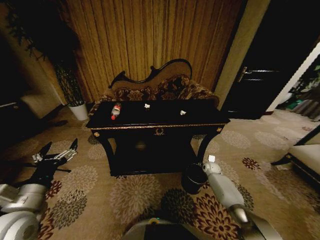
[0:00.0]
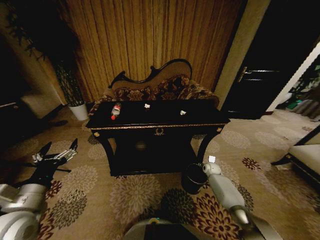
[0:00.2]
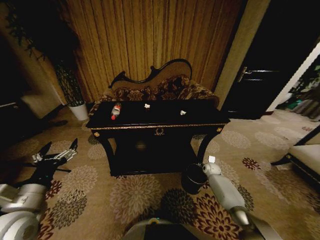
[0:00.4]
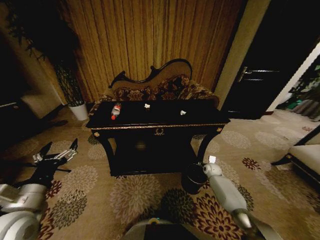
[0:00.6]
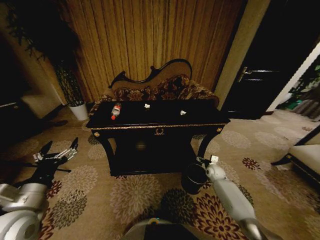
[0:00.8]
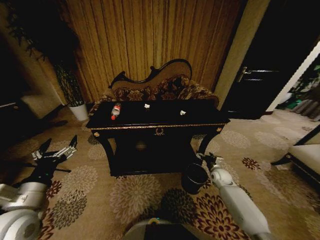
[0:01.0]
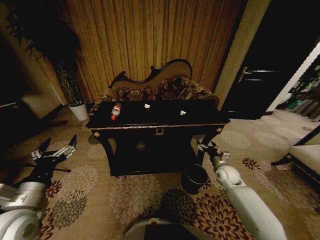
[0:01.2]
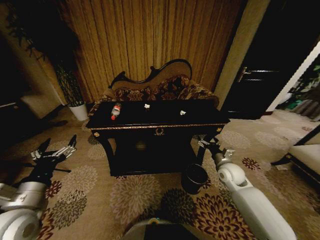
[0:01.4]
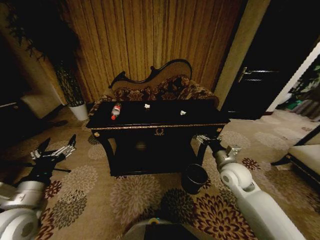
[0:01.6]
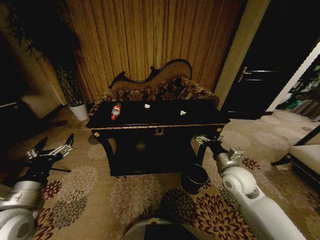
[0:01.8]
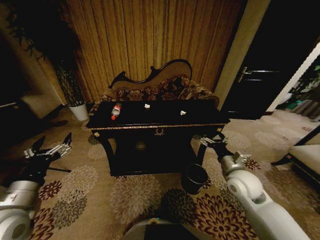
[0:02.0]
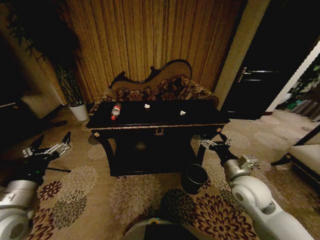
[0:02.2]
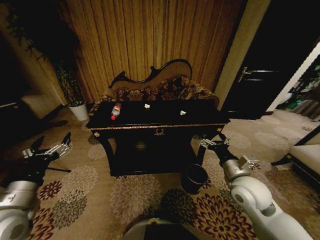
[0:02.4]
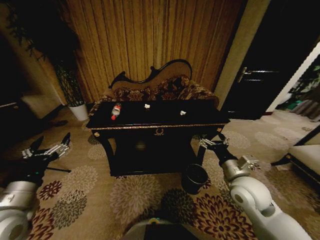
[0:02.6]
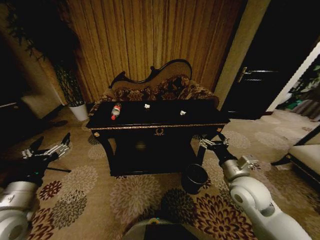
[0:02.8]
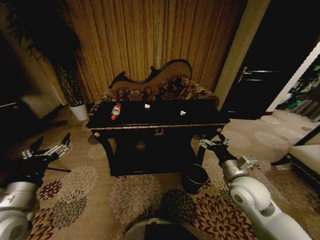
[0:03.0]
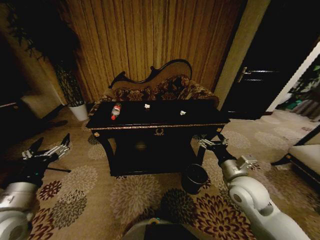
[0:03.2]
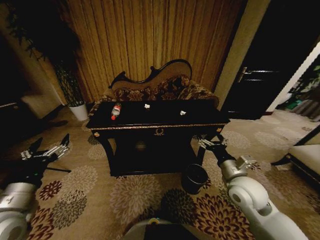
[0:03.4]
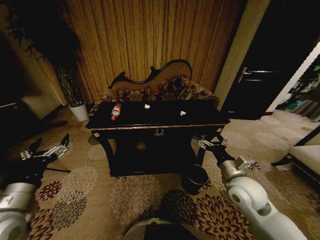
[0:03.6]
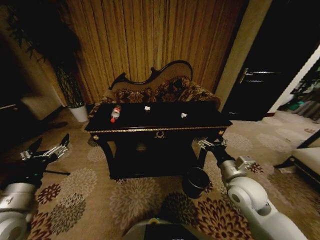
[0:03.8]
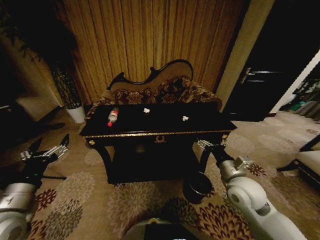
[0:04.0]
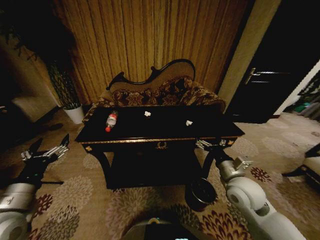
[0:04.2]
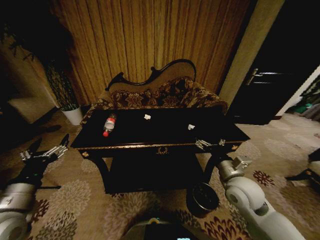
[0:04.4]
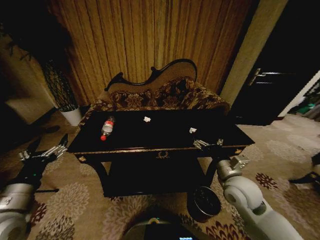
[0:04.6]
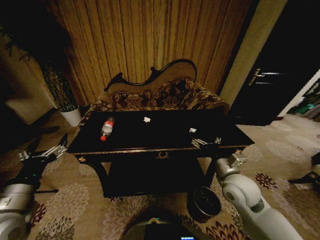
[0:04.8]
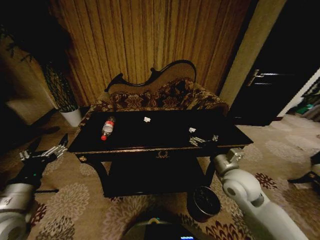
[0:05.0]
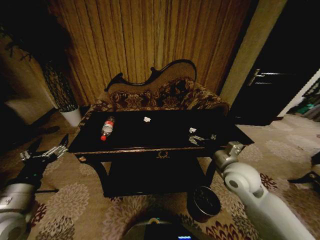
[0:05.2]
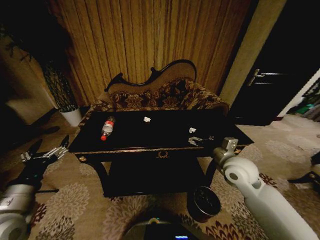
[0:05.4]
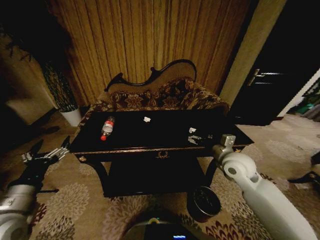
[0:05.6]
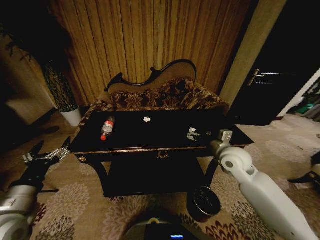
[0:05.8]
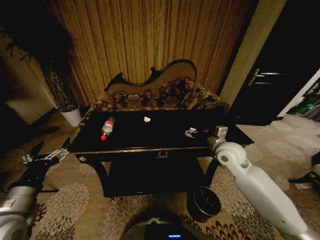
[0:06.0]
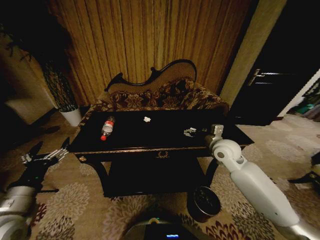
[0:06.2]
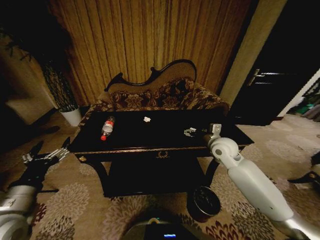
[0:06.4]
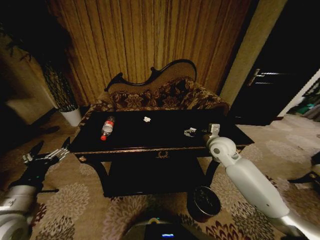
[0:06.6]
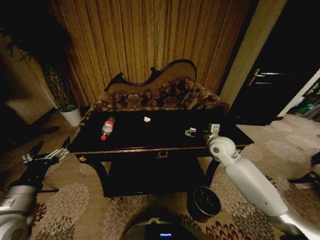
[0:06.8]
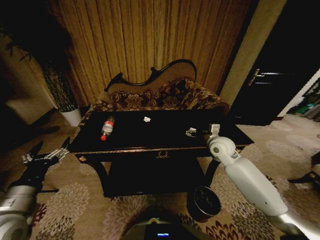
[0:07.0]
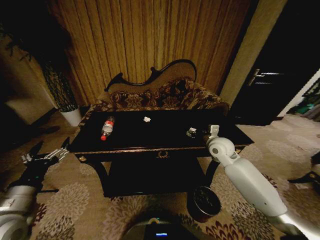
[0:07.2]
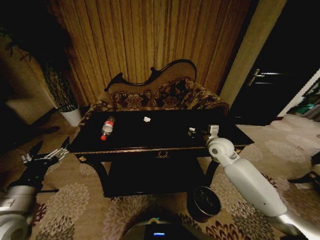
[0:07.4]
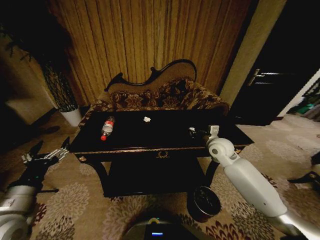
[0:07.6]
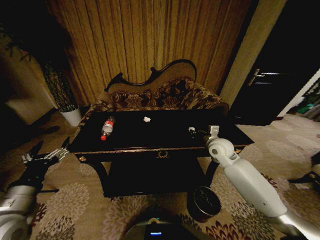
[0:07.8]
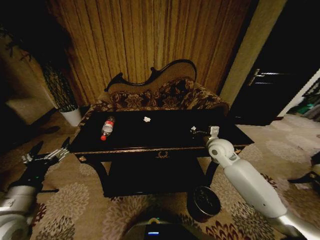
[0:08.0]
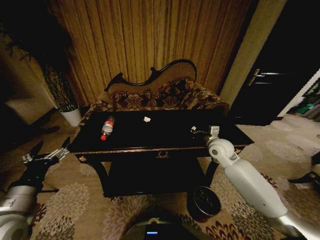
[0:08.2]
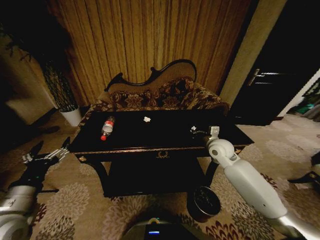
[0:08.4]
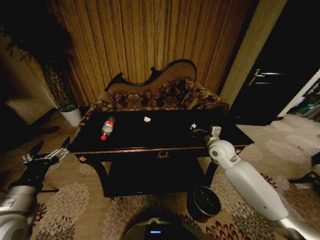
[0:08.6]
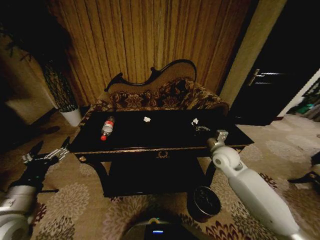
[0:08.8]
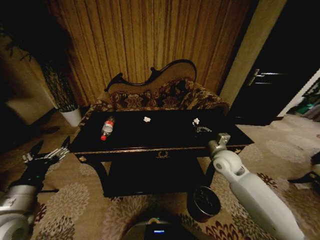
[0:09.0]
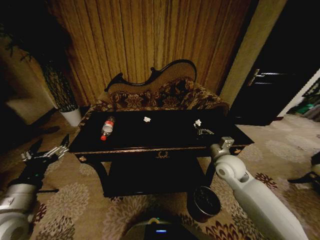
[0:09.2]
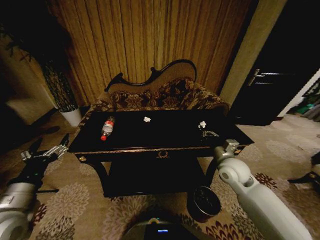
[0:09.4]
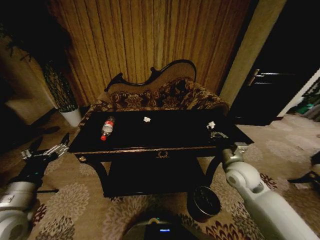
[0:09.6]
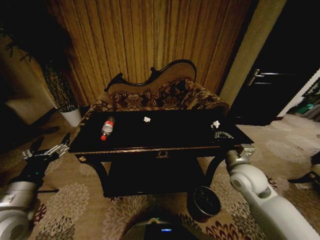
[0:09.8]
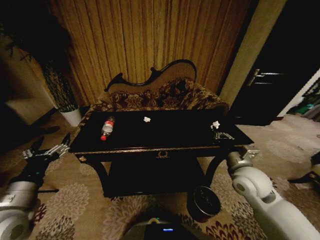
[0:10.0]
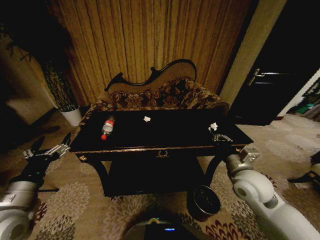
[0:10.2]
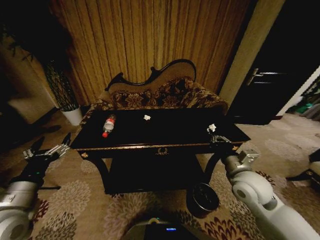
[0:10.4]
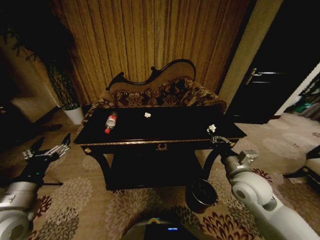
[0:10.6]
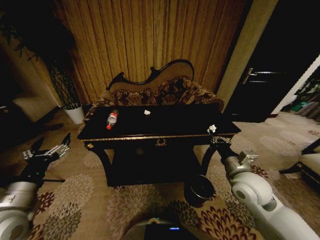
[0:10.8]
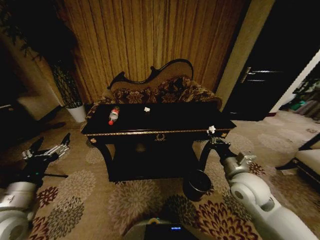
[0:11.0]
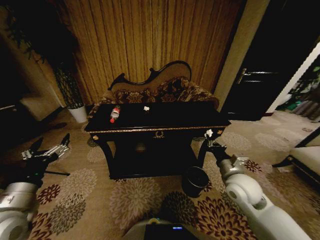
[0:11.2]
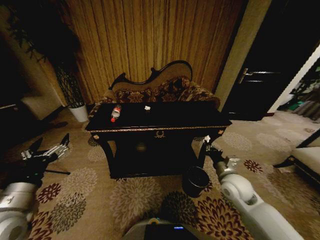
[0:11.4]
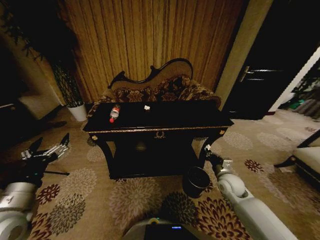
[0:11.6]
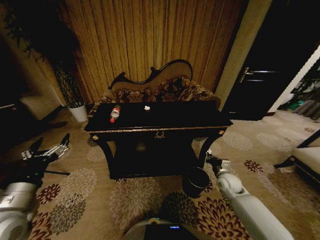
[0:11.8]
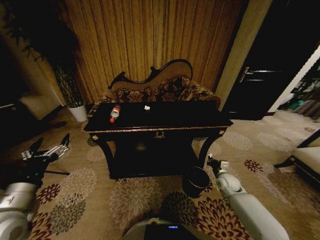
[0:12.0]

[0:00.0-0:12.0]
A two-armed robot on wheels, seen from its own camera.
Task of the whole recording: Move to the front of the table and place the trash on the table into the trash bin.
0:00.0 to 0:01.6: The right gripper goes some 30 cm upward and backward.
0:01.6 to 0:03.0: The right gripper travels backward by some 5 cm.
0:04.4 to 0:06.0: The right gripper heads forward, covering about 15 cm.
0:06.0 to 0:07.6: The right gripper shifts by roughly 5 cm, and closes.
0:07.6 to 0:09.0: The right gripper shifts about 5 cm backward, and closes up.
0:09.0 to 0:10.4: The right gripper travels backward by some 10 cm.
0:10.4 to 0:12.0: The right gripper shifts roughly 25 cm downward and forward.

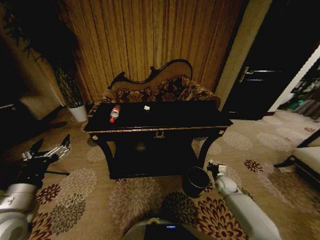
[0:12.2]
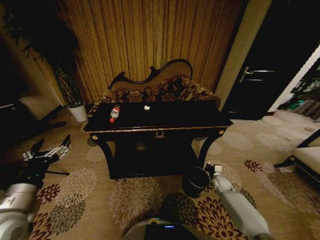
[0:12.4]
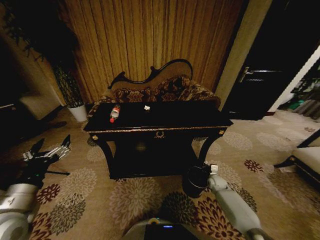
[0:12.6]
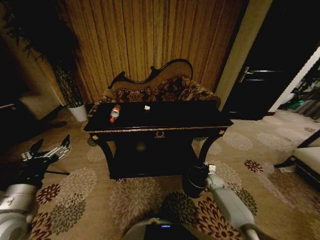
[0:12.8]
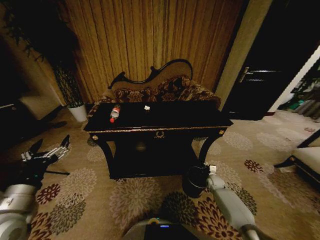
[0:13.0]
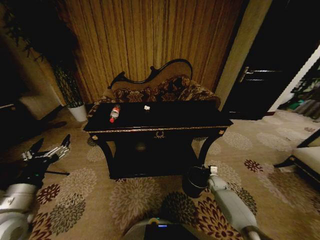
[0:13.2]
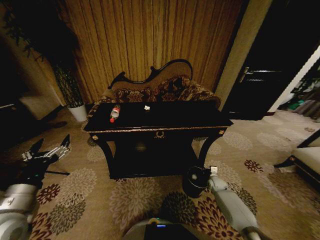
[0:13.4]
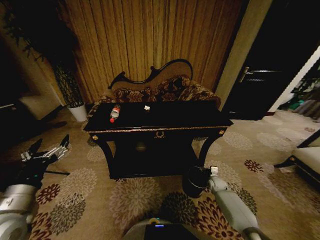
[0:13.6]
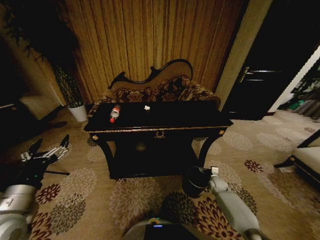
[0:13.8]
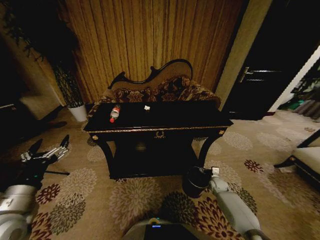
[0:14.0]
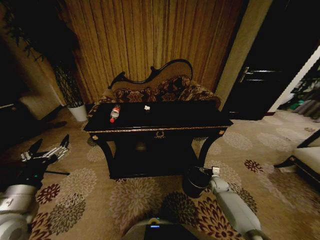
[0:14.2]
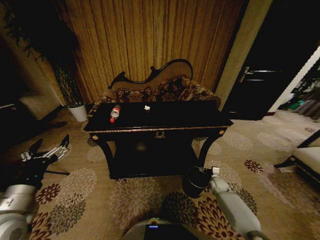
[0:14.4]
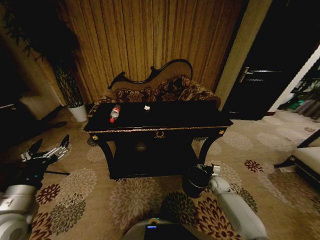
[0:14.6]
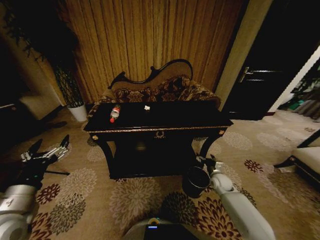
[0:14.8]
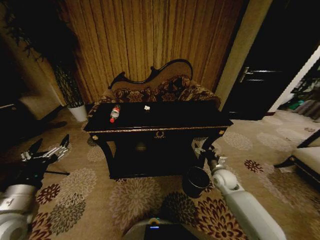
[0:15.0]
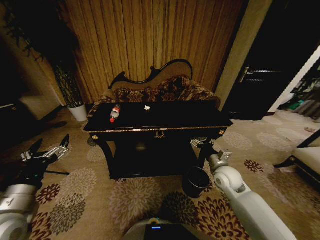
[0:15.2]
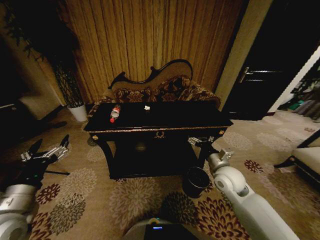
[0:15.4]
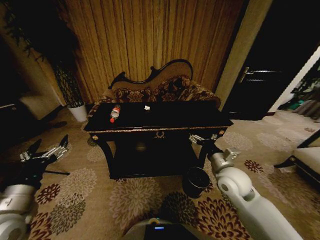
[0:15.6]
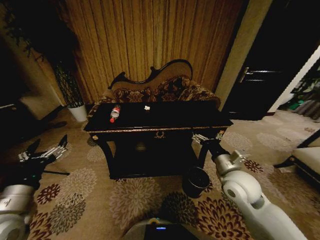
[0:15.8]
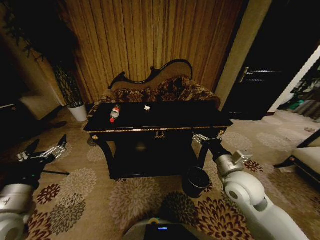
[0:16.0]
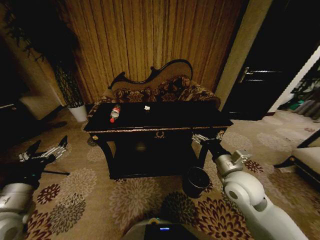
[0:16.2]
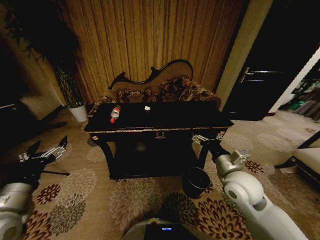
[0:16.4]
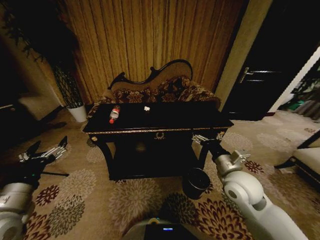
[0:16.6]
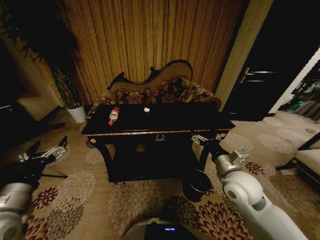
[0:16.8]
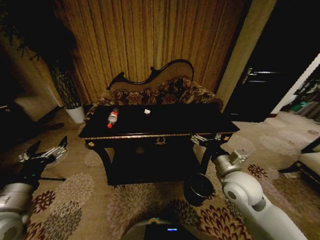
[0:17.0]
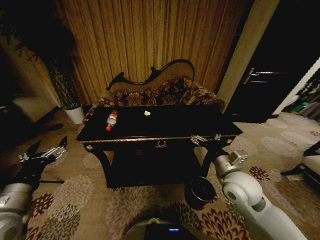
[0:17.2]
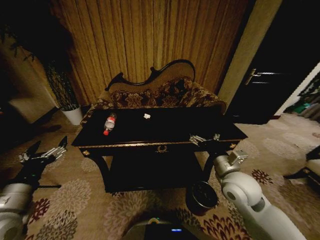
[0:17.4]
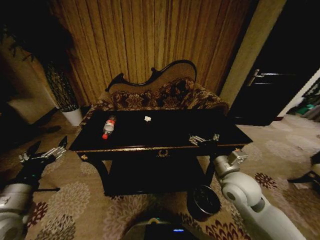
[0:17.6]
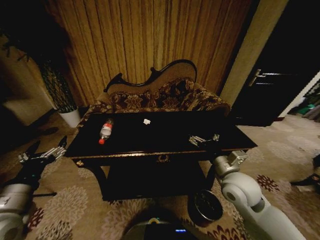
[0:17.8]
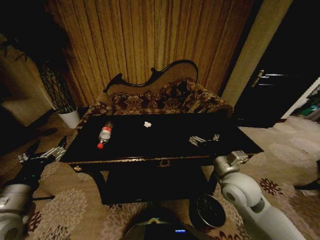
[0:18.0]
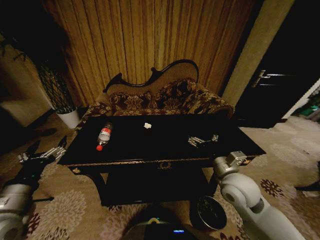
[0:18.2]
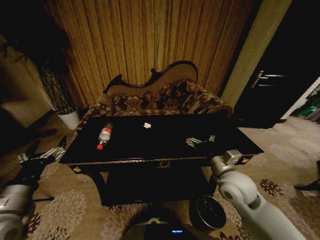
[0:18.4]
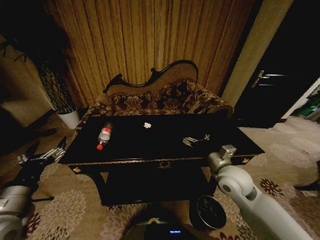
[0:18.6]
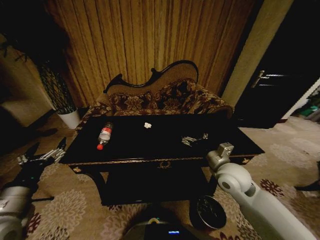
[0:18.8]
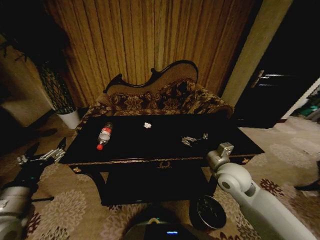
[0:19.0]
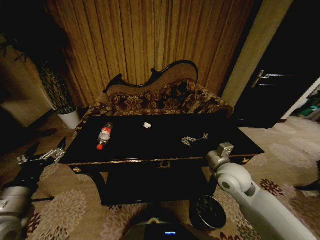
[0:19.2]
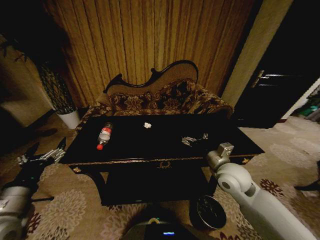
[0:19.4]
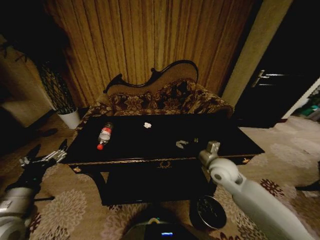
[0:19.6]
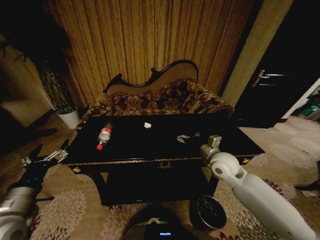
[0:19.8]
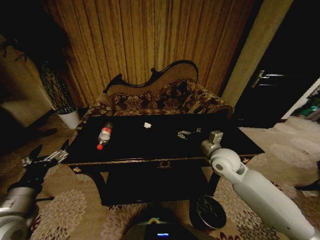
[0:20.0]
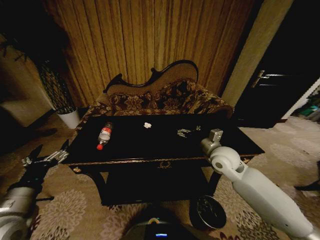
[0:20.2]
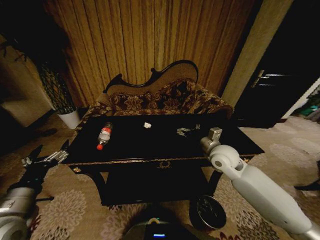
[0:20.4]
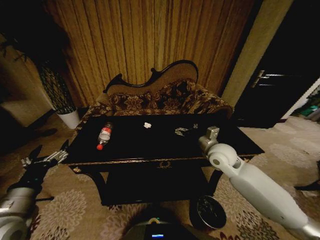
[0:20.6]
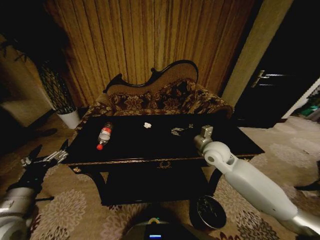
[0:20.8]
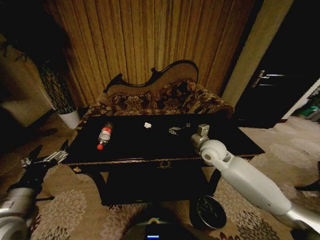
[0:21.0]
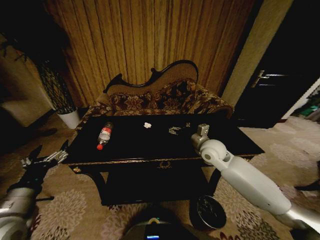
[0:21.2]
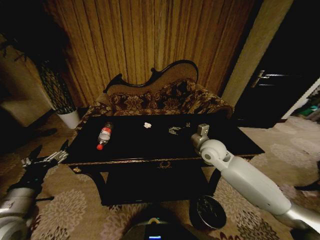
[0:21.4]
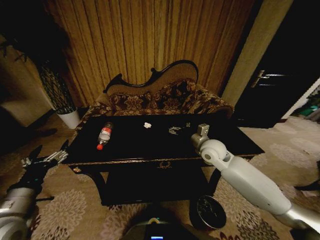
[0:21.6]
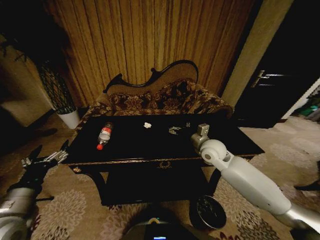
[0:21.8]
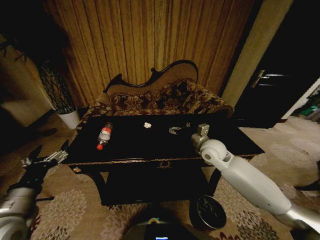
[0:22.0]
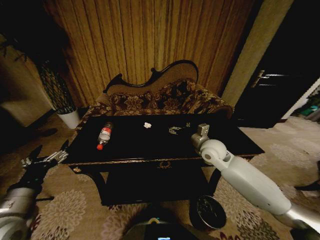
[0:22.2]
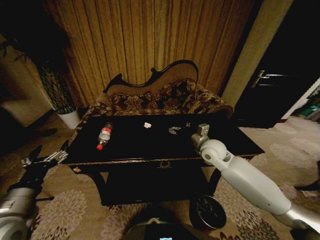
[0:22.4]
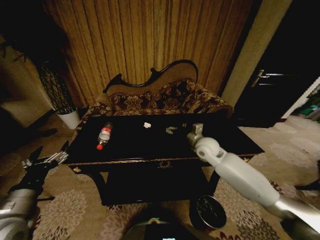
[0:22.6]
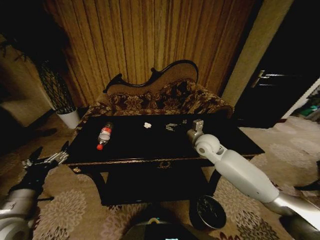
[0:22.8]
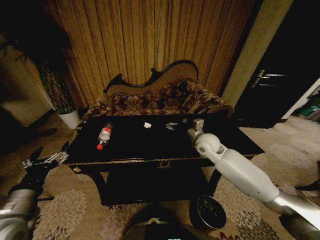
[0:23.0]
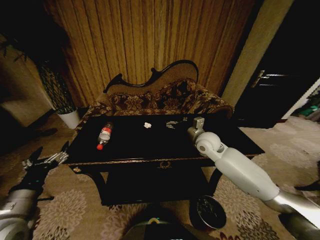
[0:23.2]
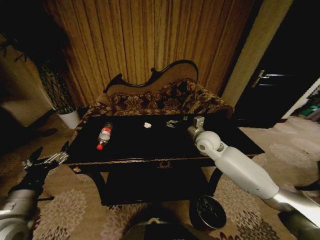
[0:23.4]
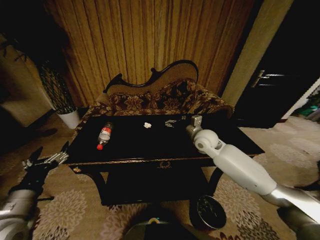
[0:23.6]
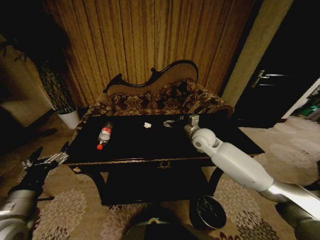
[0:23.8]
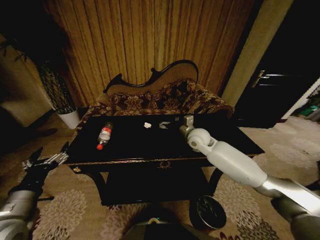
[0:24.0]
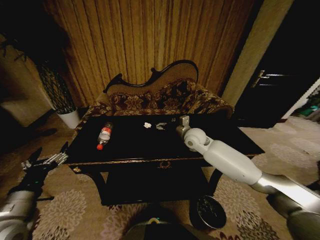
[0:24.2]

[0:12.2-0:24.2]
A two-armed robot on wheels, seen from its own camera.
Task of the whole recording: Move to the front of the table and place the trash on the table into the trash bin.
0:12.2 to 0:13.8: The right gripper moves downward, roughly 5 cm, and opens.
0:13.8 to 0:15.2: The right gripper goes roughly 25 cm upward.
0:15.2 to 0:16.6: The right gripper travels upward and backward by approximately 10 cm.
0:18.2 to 0:19.8: The right gripper shifts approximately 10 cm forward.
0:19.8 to 0:21.2: The right gripper heads forward, covering some 5 cm.
0:21.2 to 0:22.6: The grippers move only a little.
0:22.6 to 0:24.2: The right gripper changes place by some 5 cm.
